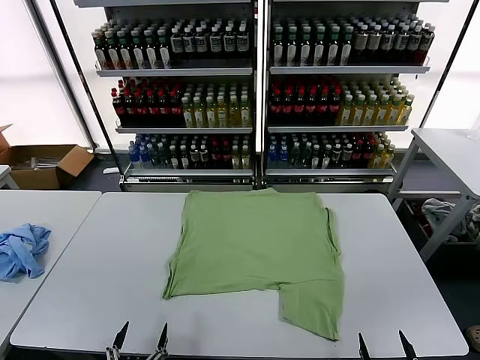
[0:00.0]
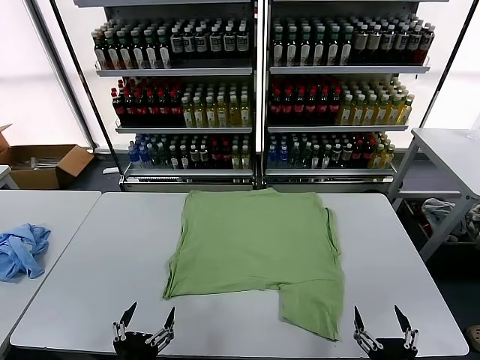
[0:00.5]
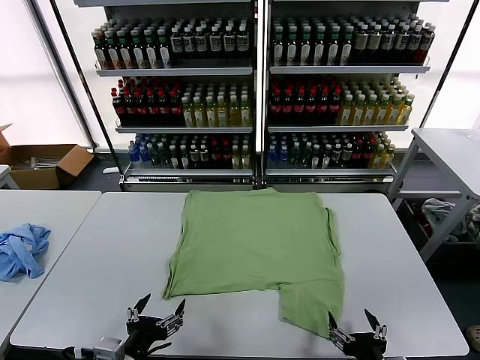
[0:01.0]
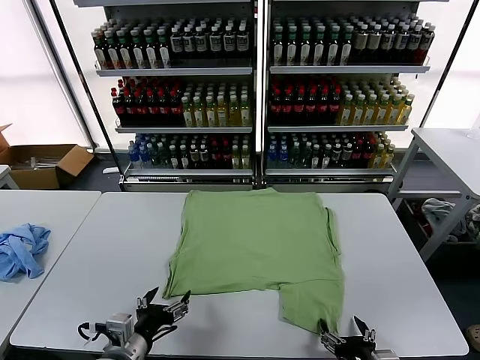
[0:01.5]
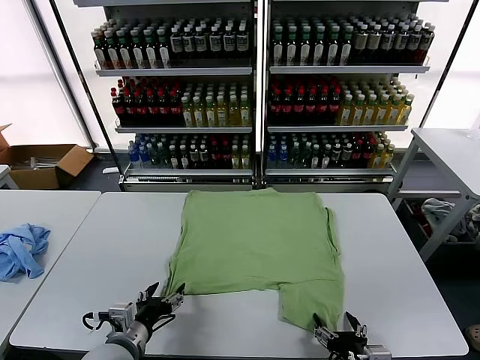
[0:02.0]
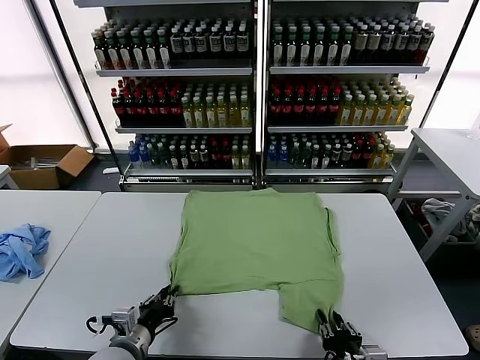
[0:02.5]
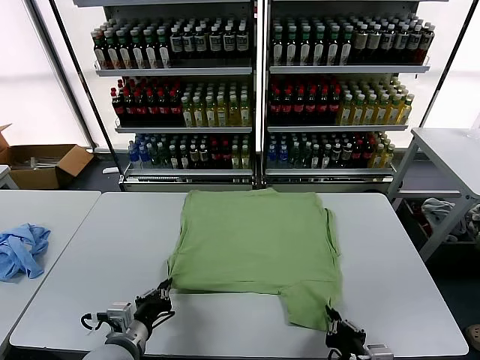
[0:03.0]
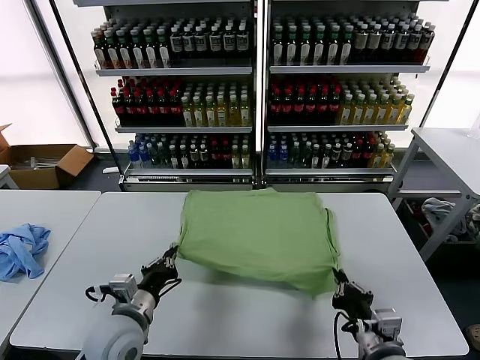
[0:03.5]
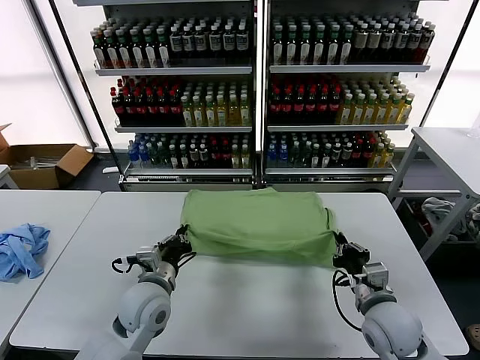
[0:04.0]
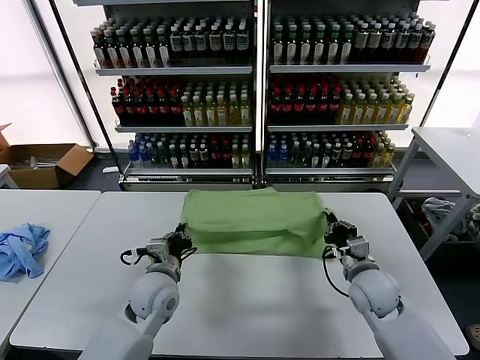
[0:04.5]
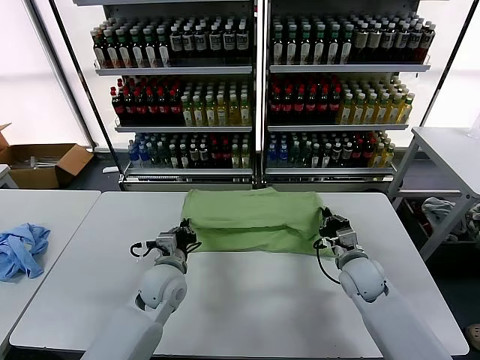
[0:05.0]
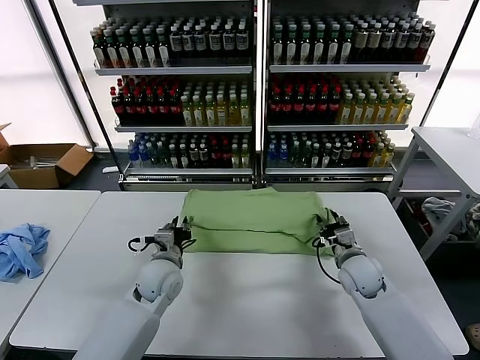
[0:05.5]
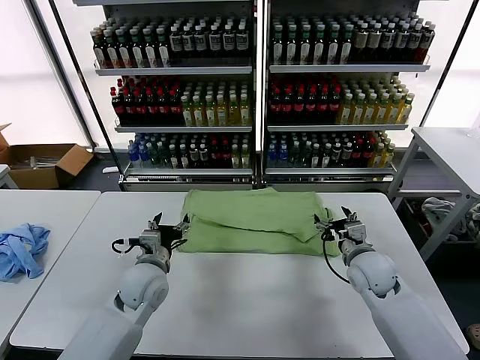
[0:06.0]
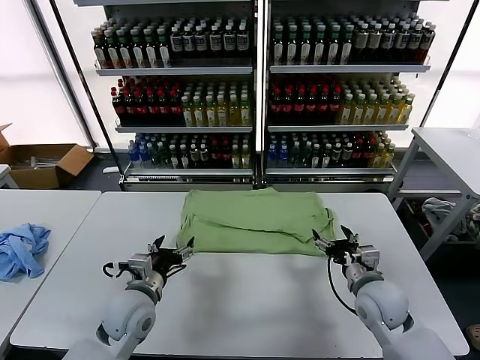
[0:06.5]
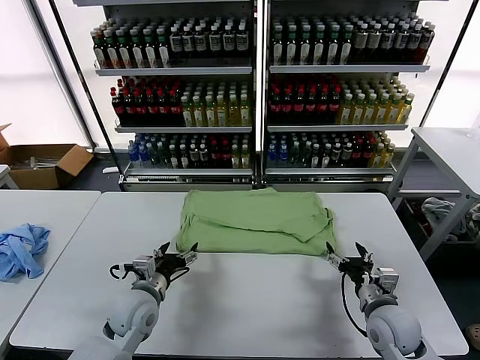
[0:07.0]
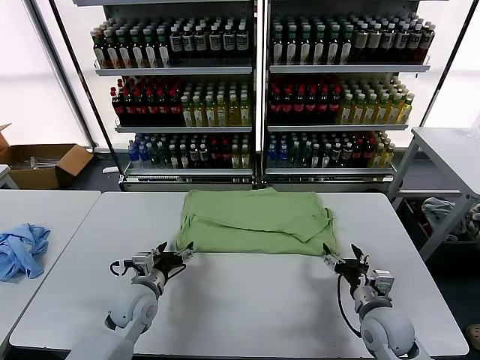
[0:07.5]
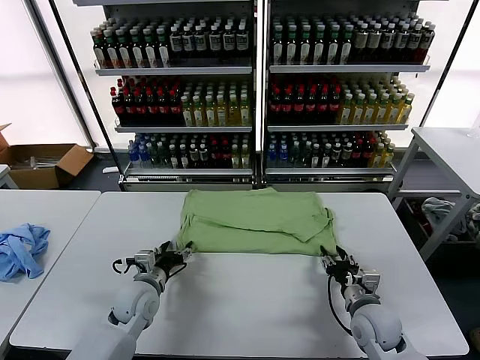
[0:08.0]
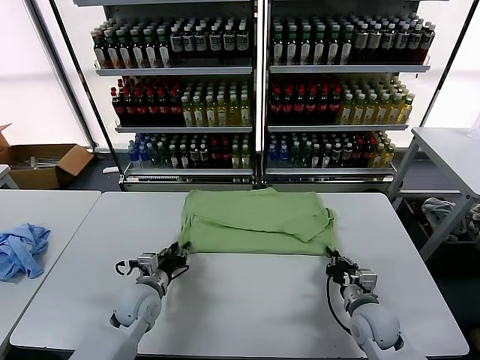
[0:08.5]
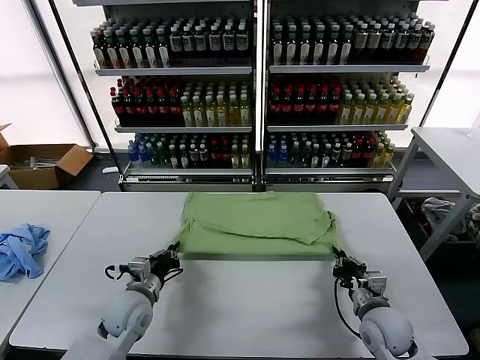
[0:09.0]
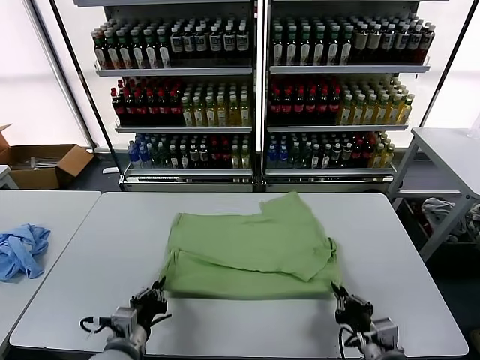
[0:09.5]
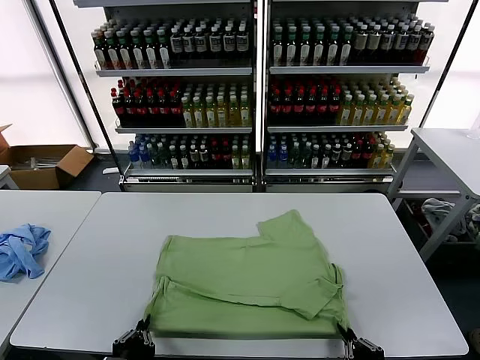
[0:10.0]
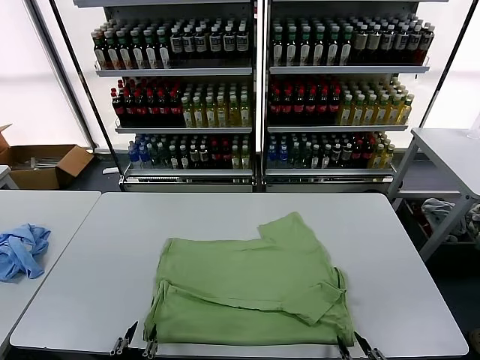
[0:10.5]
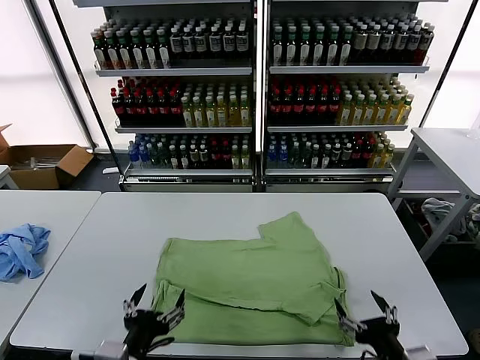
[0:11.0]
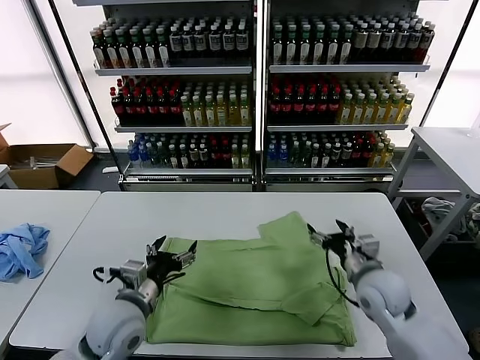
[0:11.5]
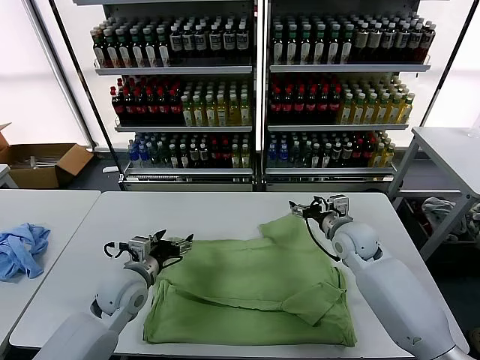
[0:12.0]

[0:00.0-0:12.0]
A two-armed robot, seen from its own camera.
Task of the whole recording: fold and organize the clothes.
Step, 0:00.0 to 0:02.5: use both grippers simultaneously to clamp the lower edge of the clothing fabric.
Step, 0:03.0 to 0:05.5: use both grippers to drag the lower edge of the fabric forward and fold it over the upper edge.
Step, 0:06.0 to 0:10.5: Drag the clothes downward with both gripper.
0:02.0 to 0:04.0: The left gripper shifts roughly 10 cm forward and to the right, and closes up. Meanwhile the right gripper heads forward, covering about 15 cm, and closes up.
0:04.0 to 0:06.0: The right gripper heads forward, covering some 10 cm, and opens up, while the left gripper opens.
0:06.0 to 0:08.0: The right gripper moves backward and downward, some 10 cm, and closes up, while the left gripper heads downward, covering about 5 cm.
0:08.0 to 0:10.0: The grippers both shift backward by some 25 cm. The left gripper closes its fingers; the right gripper closes its fingers.
0:10.0 to 0:12.0: The right gripper travels forward by approximately 40 cm, and opens its fingers. Meanwhile the left gripper heads forward, covering approximately 25 cm, and opens up.

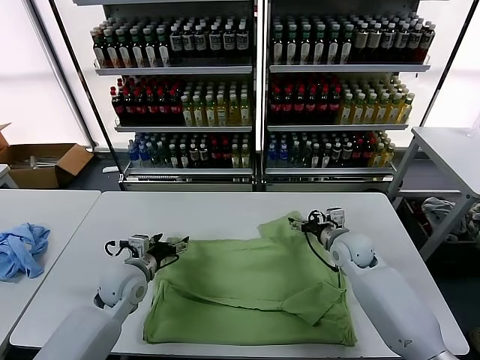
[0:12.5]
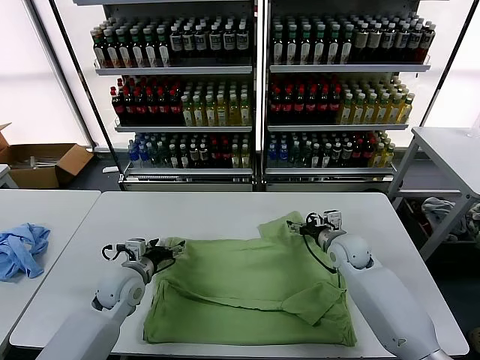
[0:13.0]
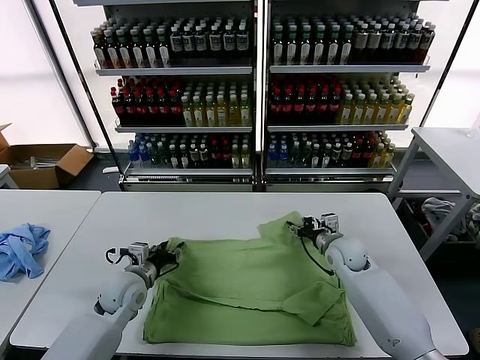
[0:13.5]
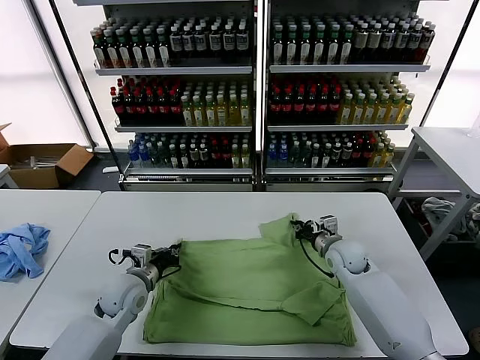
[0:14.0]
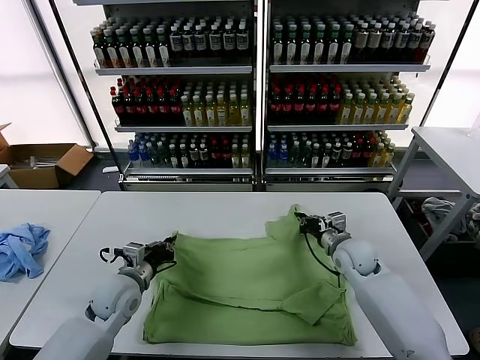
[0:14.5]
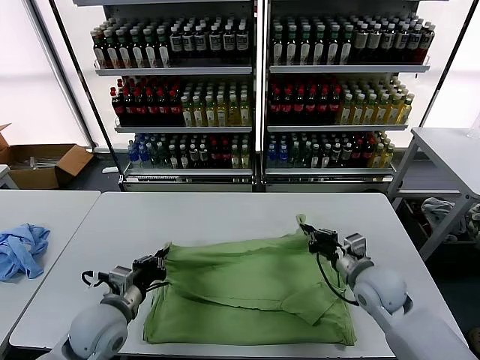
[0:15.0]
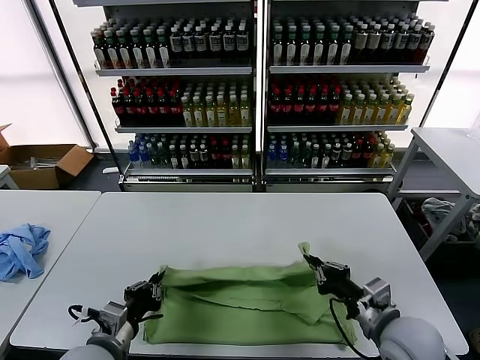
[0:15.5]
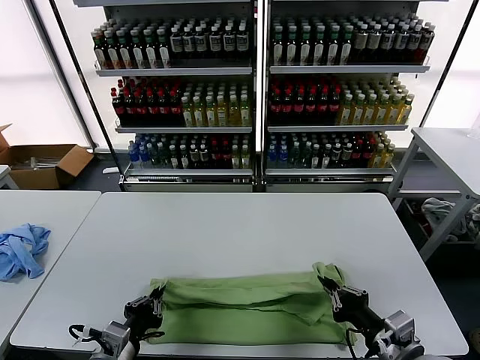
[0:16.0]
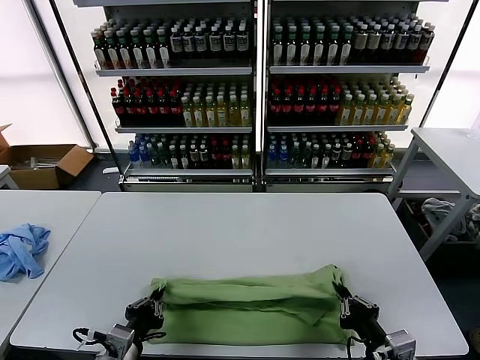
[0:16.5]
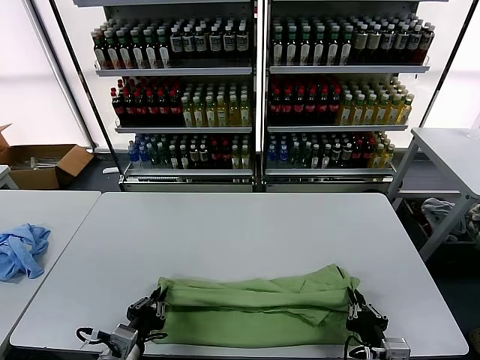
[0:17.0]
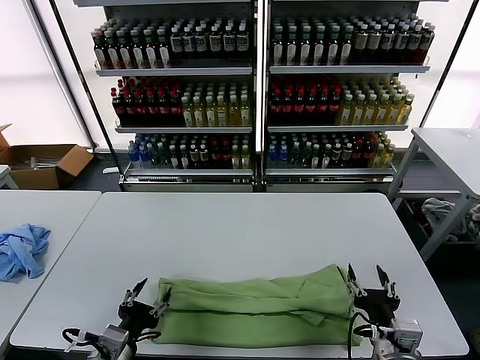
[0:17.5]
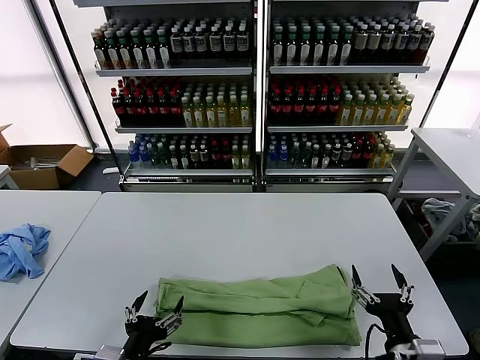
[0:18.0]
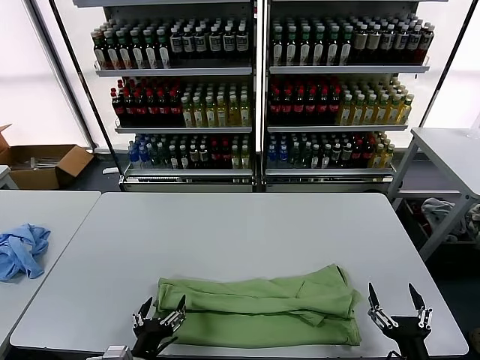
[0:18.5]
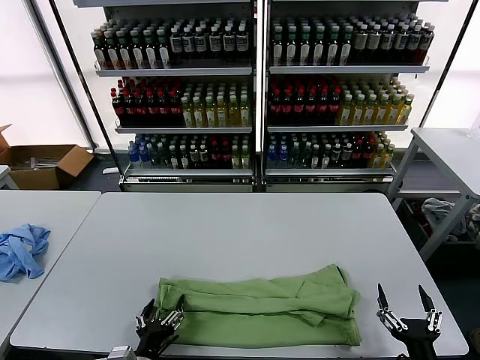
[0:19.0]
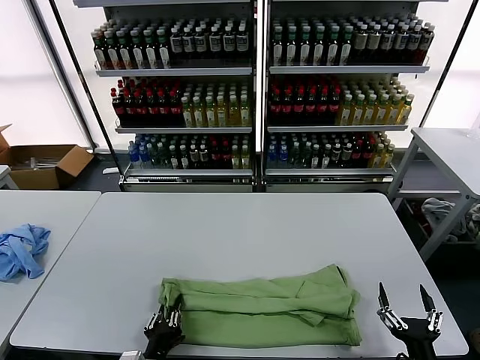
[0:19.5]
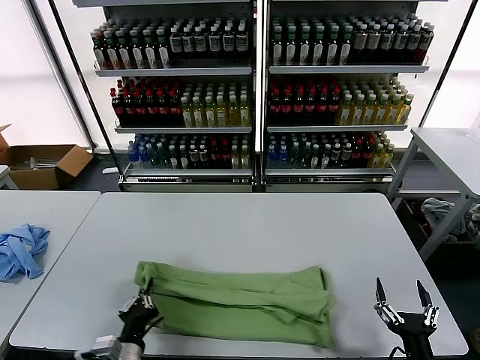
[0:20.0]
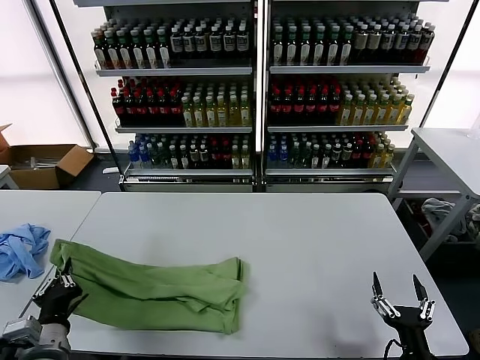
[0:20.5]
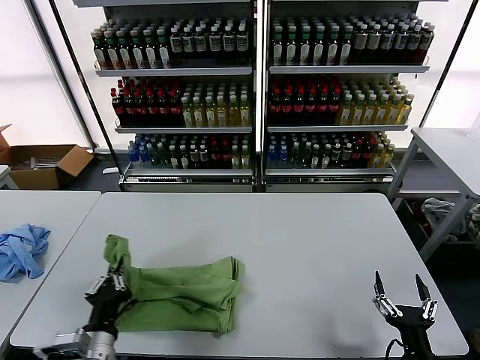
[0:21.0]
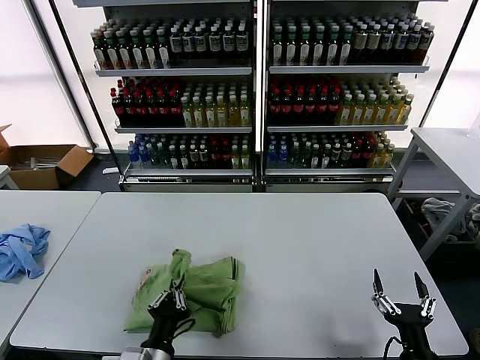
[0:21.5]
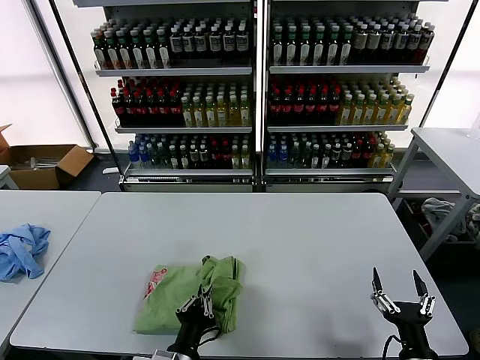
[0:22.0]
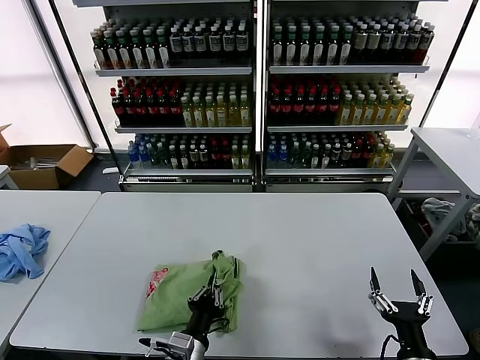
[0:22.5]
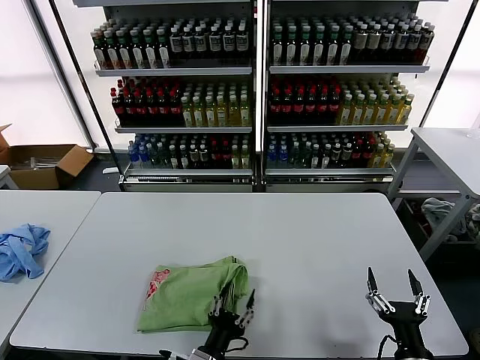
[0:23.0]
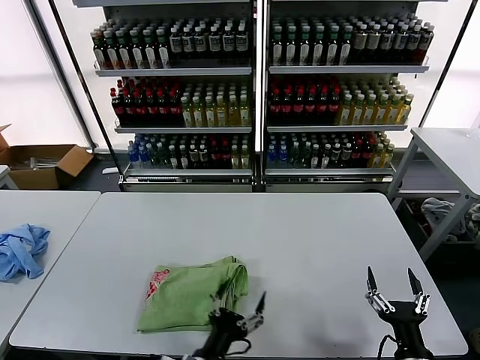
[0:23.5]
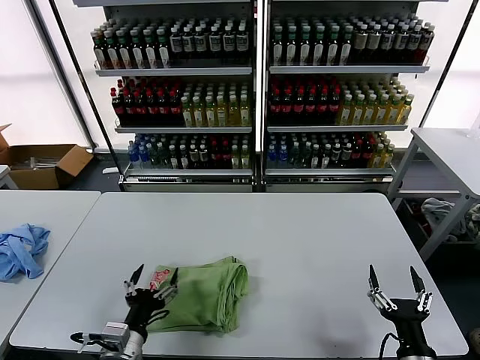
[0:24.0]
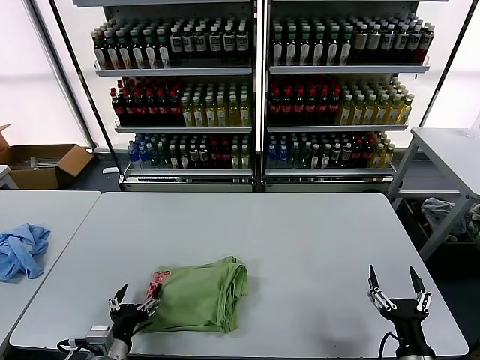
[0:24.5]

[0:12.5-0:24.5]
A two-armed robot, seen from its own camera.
Task of the whole recording: fold and organize the clothes.
Step, 0:14.5 to 0:17.0: use both grippers to drag the upper edge of the fabric backward and fold it over the lower edge.
Step, 0:17.5 to 0:19.5: use the left gripper to clamp the left edge of the fabric.
Step, 0:20.0 to 0:22.5: use the left gripper to drag the left edge of the fabric to the left and folds it over the right edge.
0:12.5 to 0:14.5: The right gripper closes its fingers. Meanwhile the left gripper closes.
0:14.5 to 0:16.5: The left gripper moves backward, about 20 cm, while the right gripper is displaced backward by about 30 cm.
0:16.5 to 0:18.5: The right gripper ends up approximately 10 cm from where it was, and opens, while the left gripper ends up roughly 5 cm from where it was, and opens.
0:18.5 to 0:20.5: The left gripper goes some 15 cm to the left and upward, and closes.
0:20.5 to 0:22.5: The left gripper is displaced to the right by roughly 20 cm.
0:22.5 to 0:24.5: The left gripper goes about 15 cm to the left, and opens.

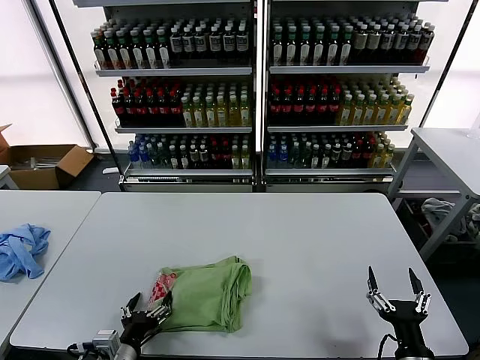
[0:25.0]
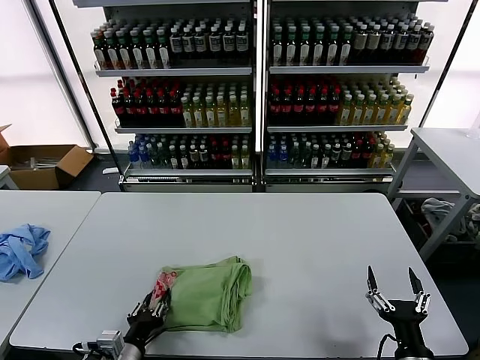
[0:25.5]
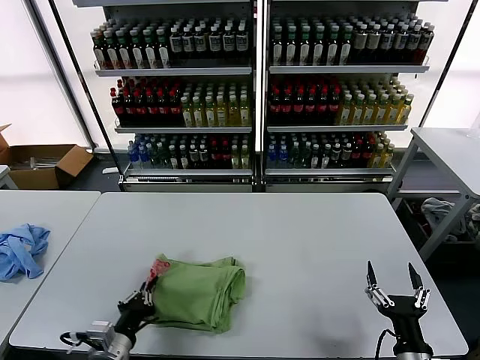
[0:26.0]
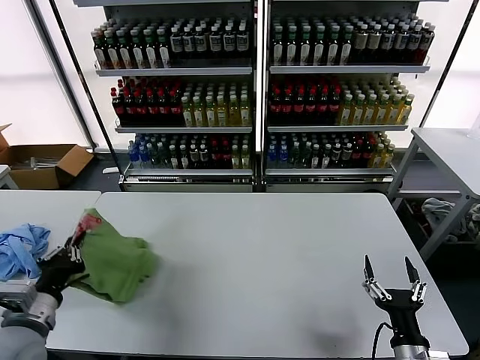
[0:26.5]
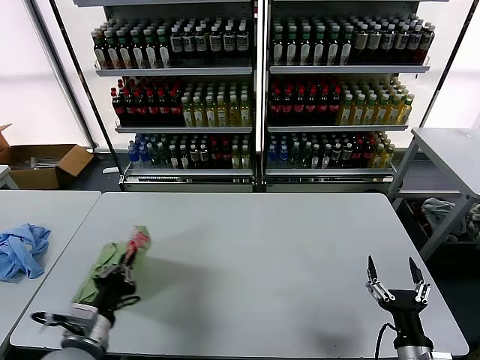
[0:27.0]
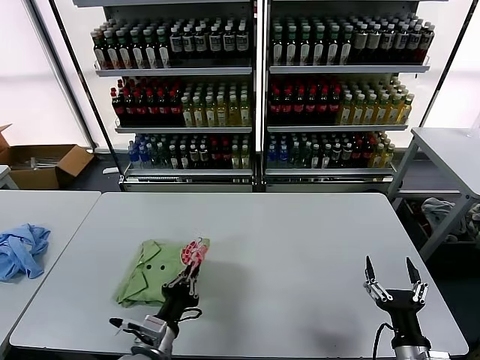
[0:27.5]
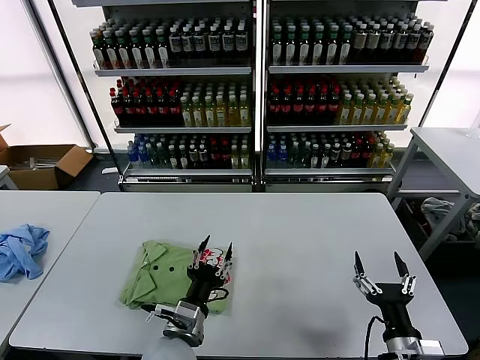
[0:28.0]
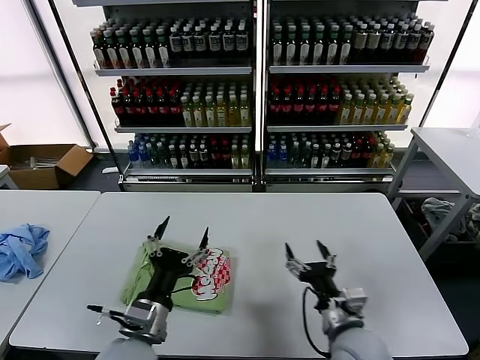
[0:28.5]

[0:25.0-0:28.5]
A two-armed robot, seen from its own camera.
Task of the whole recording: fold and organize the clothes.
Step, 0:25.0 to 0:27.5: Flip the folded clothes over with left gripper.
0:25.0 to 0:27.0: The left gripper travels upward by some 10 cm, and closes.
0:27.0 to 0:28.5: The right gripper goes some 15 cm to the left and forward. The left gripper moves to the right, roughly 15 cm, and opens its fingers.
